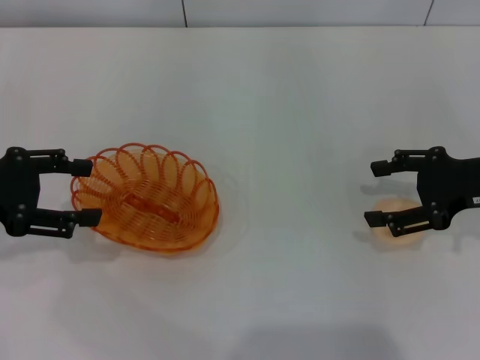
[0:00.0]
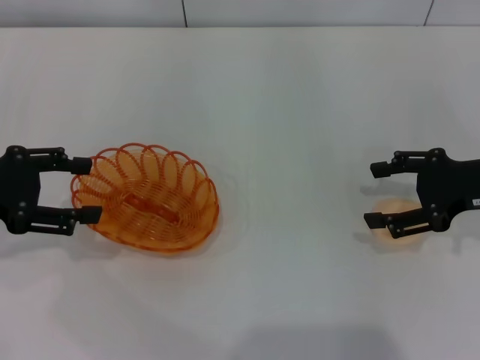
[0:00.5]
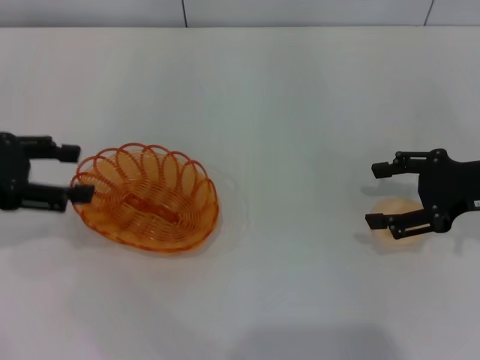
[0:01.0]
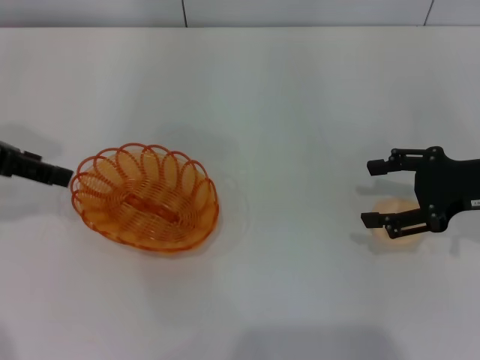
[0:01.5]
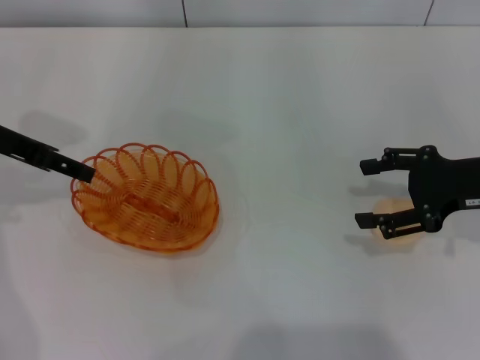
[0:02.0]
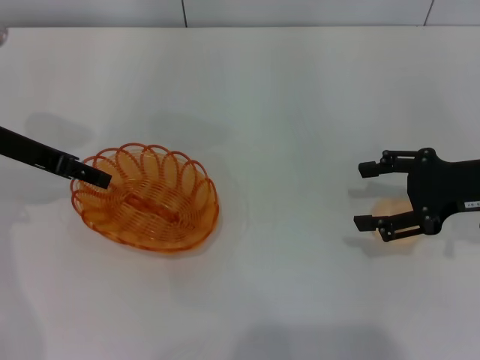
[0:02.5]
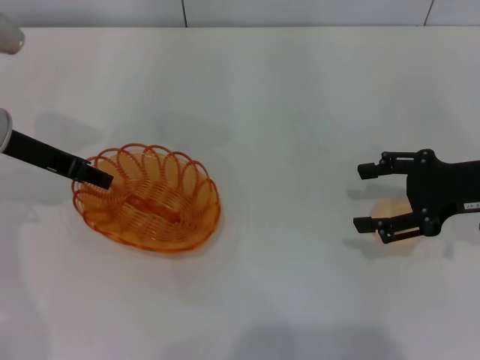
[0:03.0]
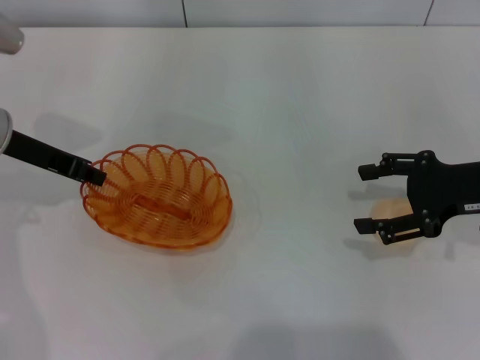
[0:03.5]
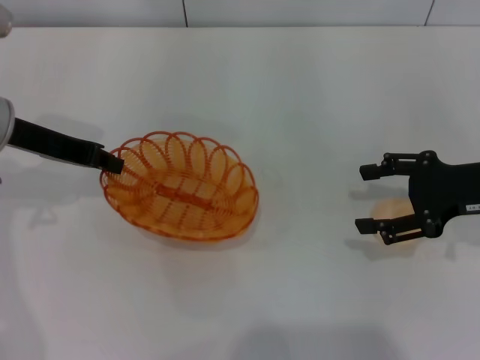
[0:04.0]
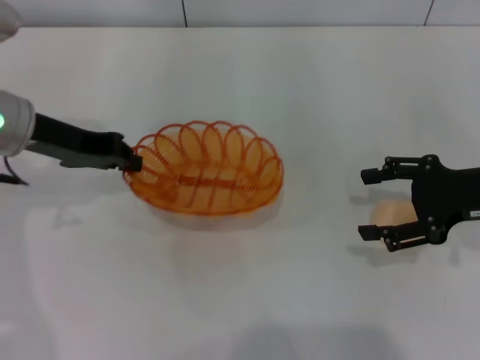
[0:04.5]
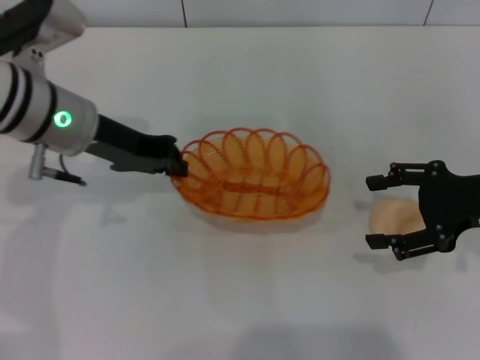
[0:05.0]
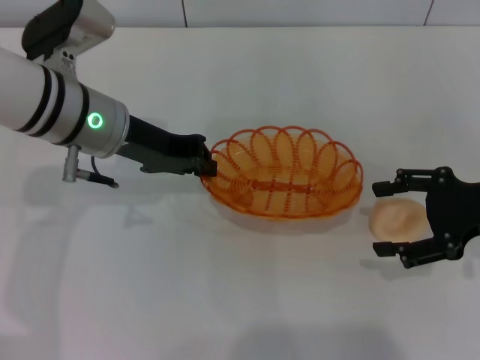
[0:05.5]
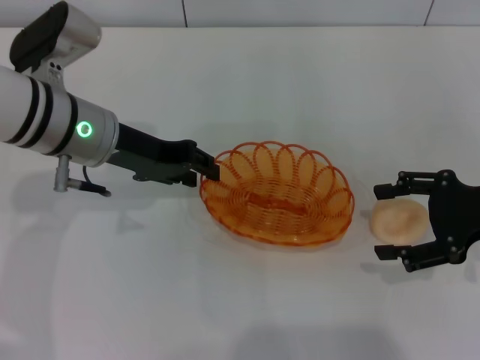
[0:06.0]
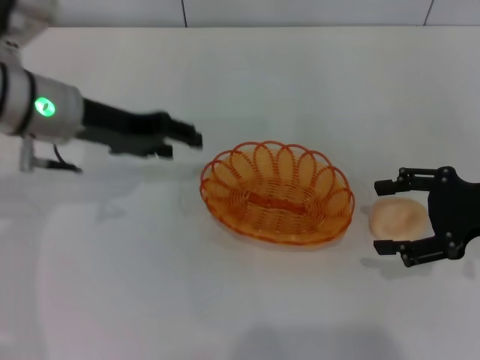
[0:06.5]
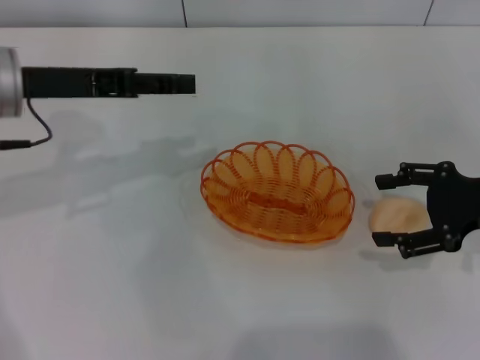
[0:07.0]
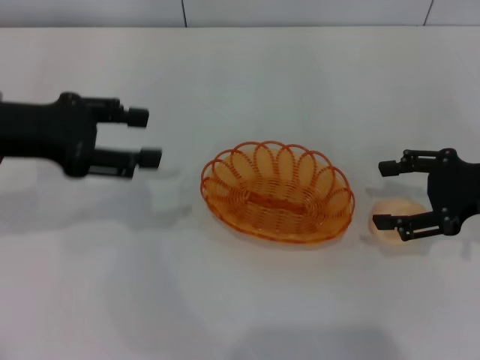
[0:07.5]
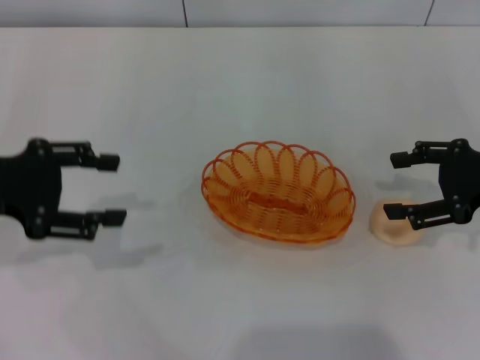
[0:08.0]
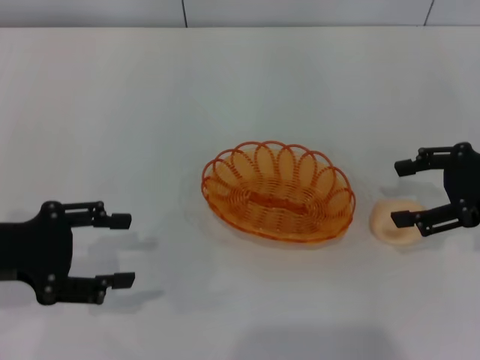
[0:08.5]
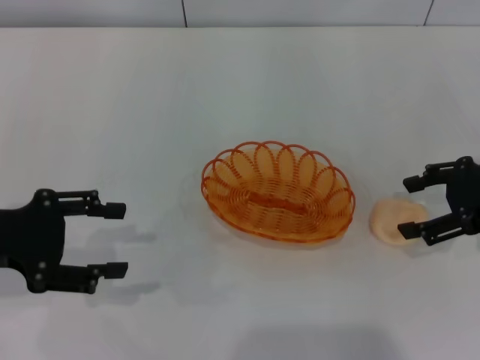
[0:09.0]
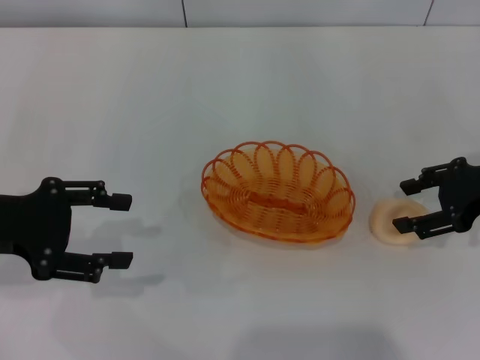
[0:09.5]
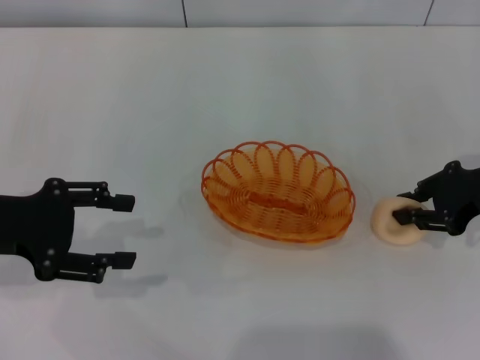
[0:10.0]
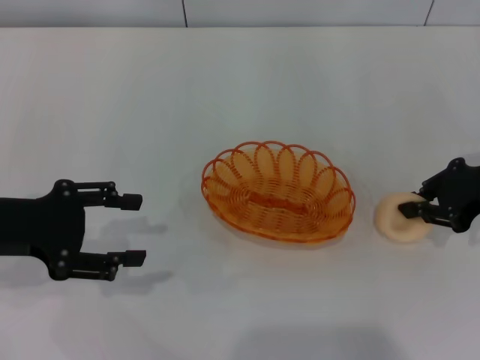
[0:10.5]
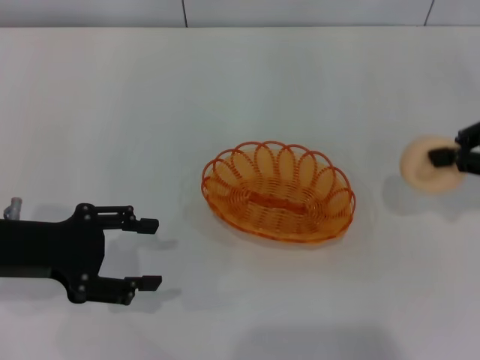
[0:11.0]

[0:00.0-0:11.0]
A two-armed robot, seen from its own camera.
Step, 0:00.0 to 0:04.0: Pick up the basket with the left gripper.
Step, 0:04.5 to 0:07.0: Place the basket in the center of view with the left gripper.
Step, 0:07.5 to 0:11.0: Pick up the egg yolk pastry with the right gripper.
0:00.0 to 0:02.0: The left gripper goes some 5 cm forward.
0:02.0 to 0:03.5: The left gripper closes.
0:03.5 to 0:05.5: The left gripper heads to the right, covering roughly 10 cm.
0:05.5 to 0:07.5: The left gripper goes about 10 cm to the left, and opens up.
0:07.5 to 0:09.0: The left gripper shifts about 10 cm backward and downward.
0:09.0 to 0:11.0: The right gripper shifts by approximately 5 cm, and closes.

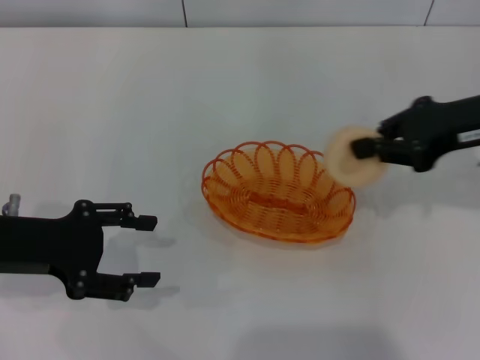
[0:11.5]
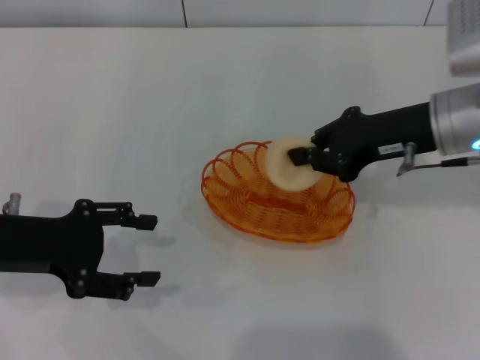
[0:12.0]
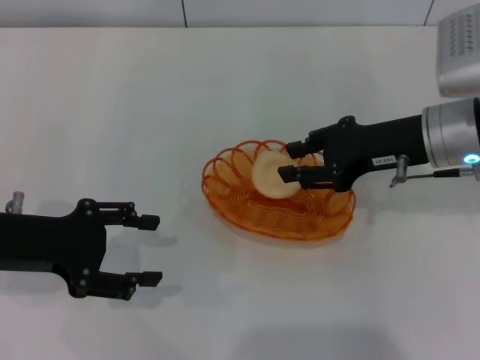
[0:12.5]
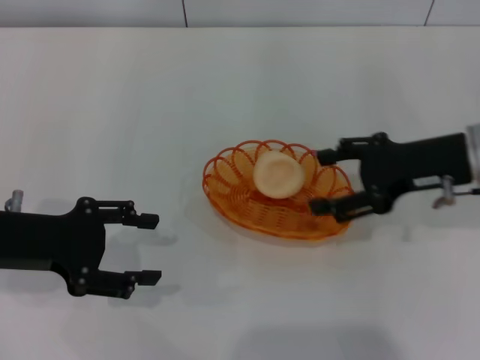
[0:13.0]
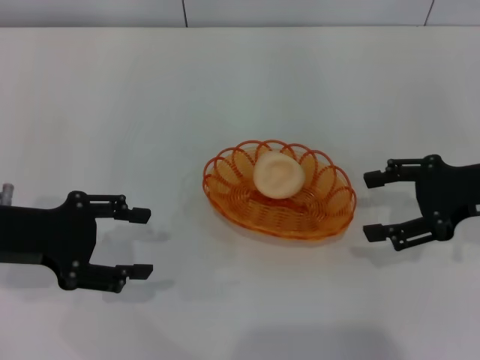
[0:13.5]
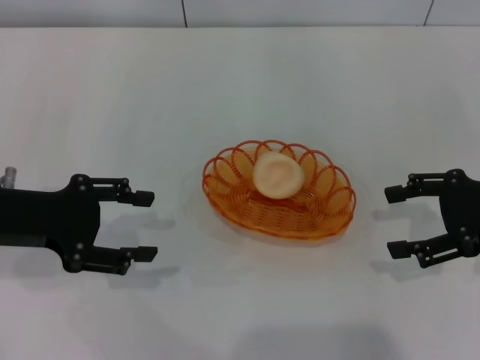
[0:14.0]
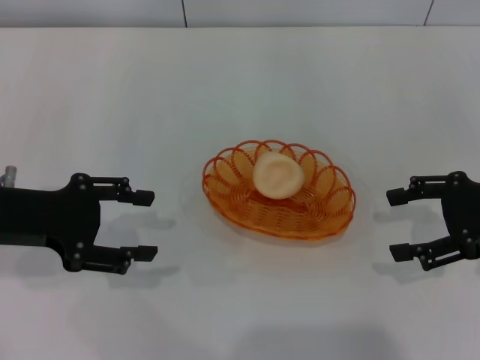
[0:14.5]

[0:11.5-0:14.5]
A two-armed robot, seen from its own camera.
Step, 0:11.5 to 0:13.5: Place the egg yolk pastry into the basket with the right gripper.
0:11.5 to 0:13.0: The right gripper shifts by about 5 cm, and opens up.
0:13.0 to 0:14.5: The right gripper moves to the right, about 10 cm, and opens up.
